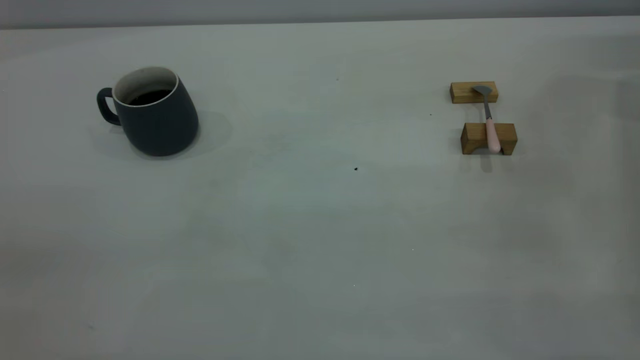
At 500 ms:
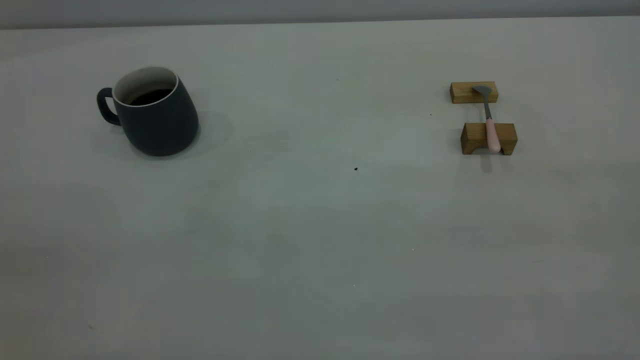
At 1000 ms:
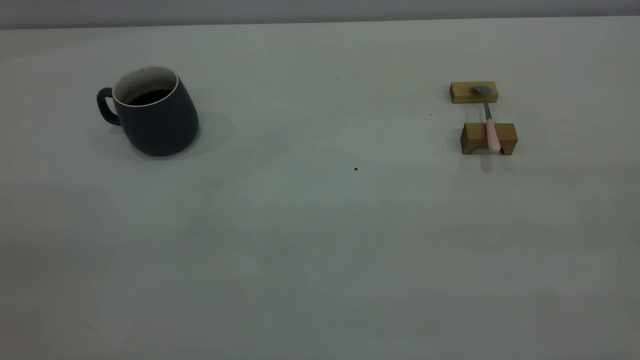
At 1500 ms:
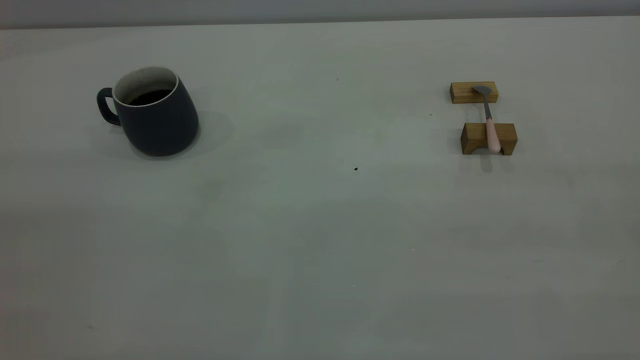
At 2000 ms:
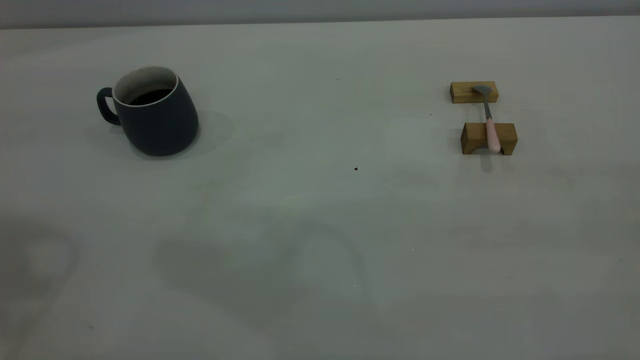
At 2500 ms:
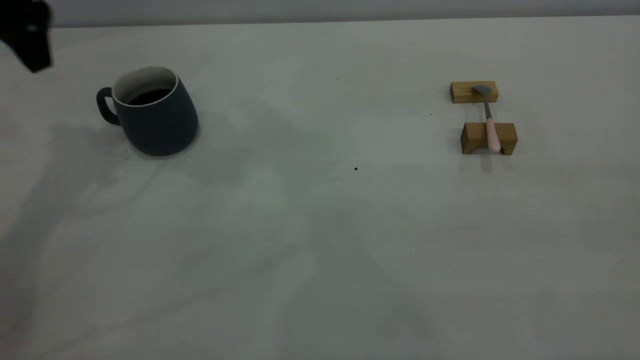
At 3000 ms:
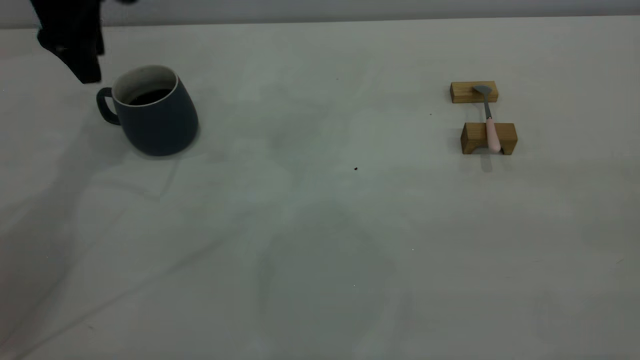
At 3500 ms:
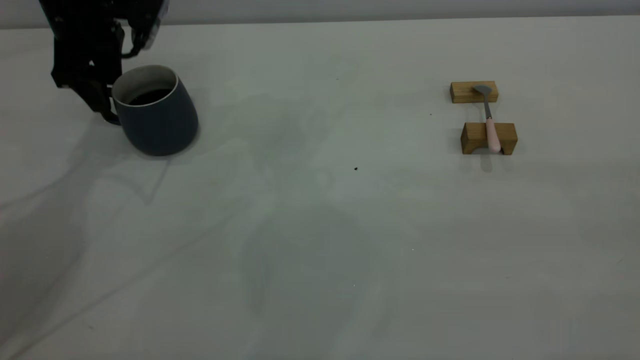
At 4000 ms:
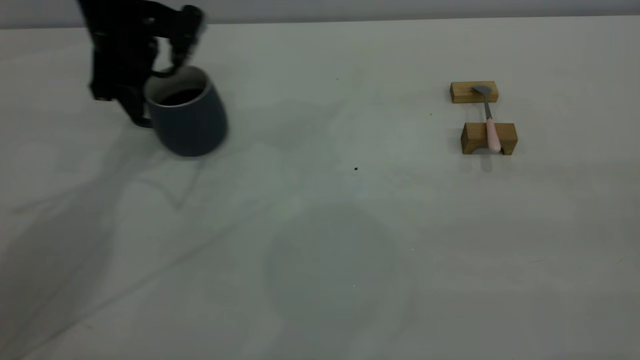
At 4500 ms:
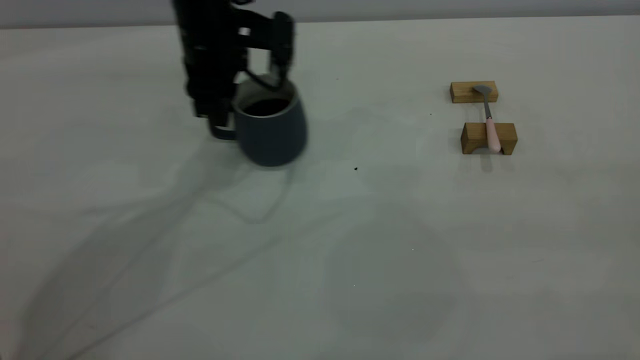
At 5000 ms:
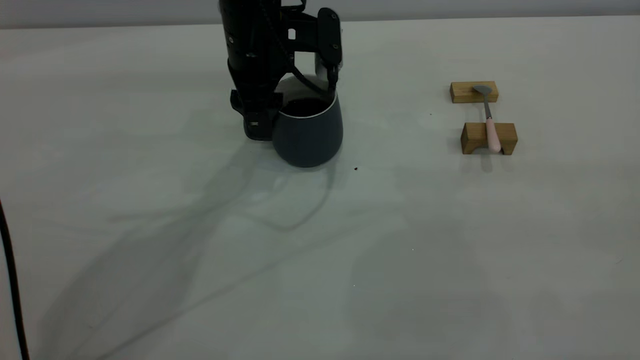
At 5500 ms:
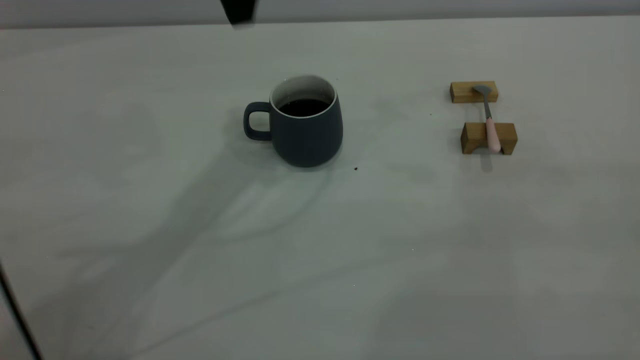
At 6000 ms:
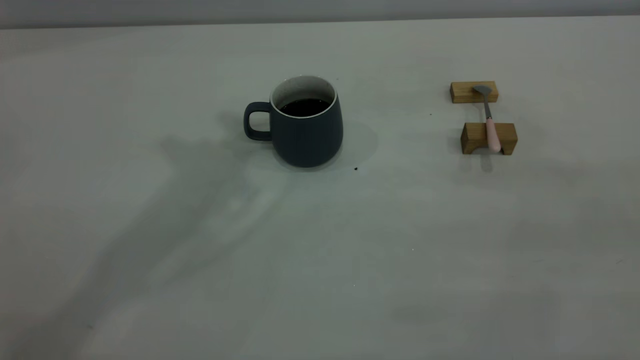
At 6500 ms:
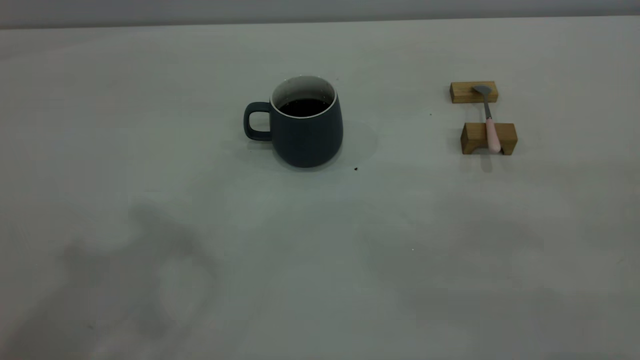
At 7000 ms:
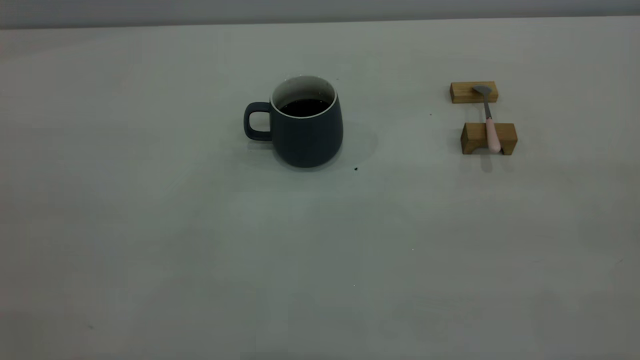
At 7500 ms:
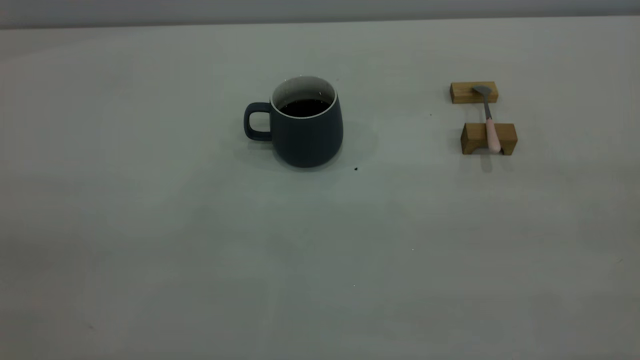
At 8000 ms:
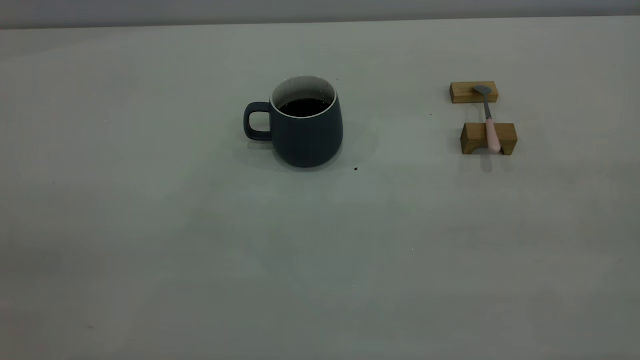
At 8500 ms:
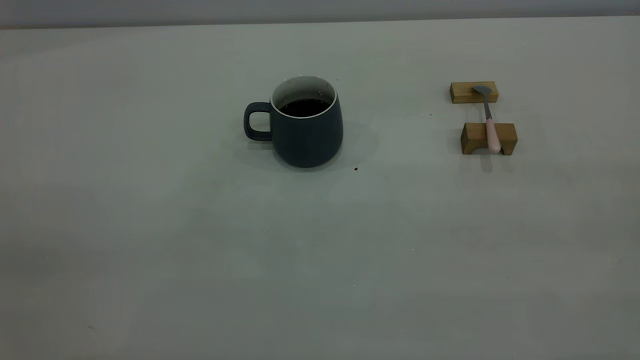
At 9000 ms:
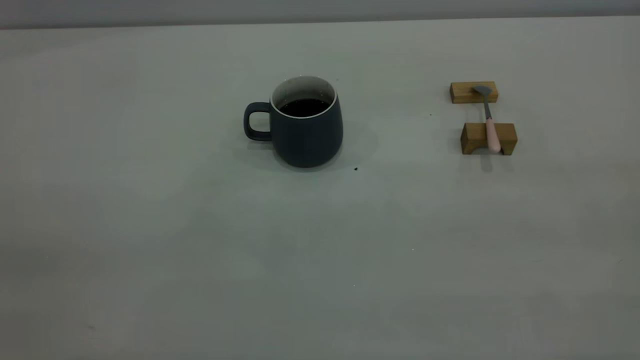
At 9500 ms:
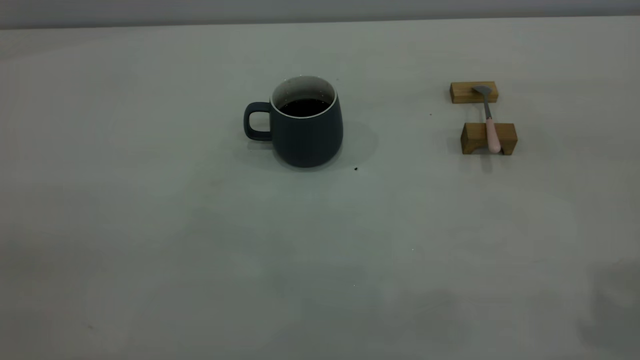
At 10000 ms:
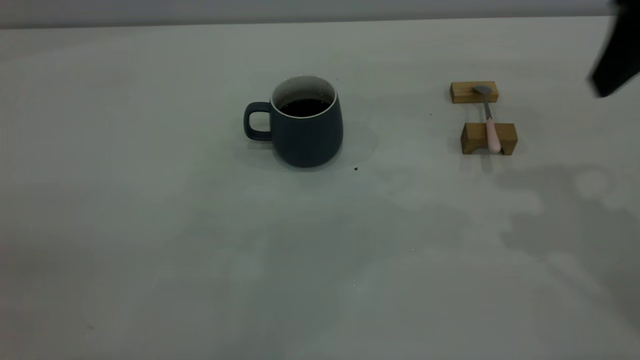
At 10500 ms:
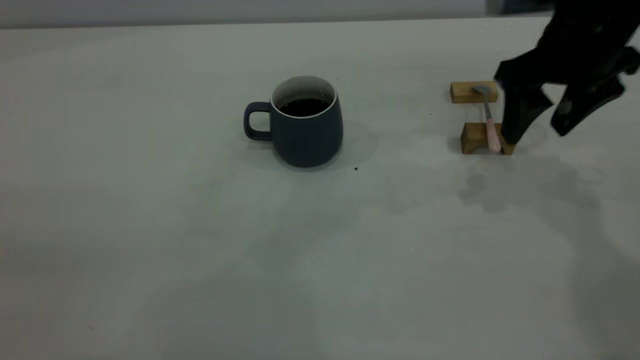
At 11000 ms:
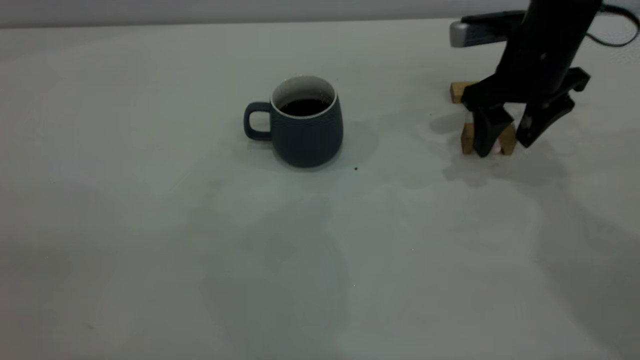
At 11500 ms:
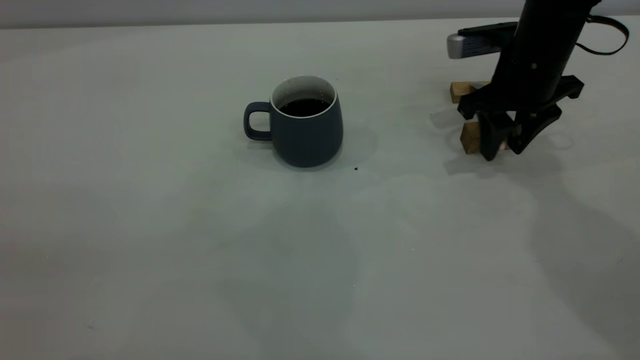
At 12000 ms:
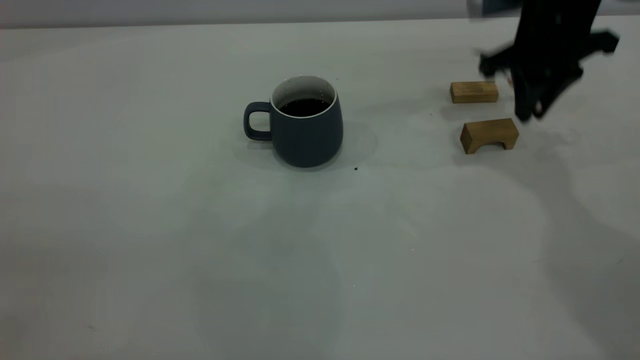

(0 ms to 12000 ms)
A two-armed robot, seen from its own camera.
Step, 0 ms - 5000 ms: Move the cup with coffee to the center of view.
Step, 5500 ms - 11500 ms: Pick up the spoon.
2000 ms - 4000 ms: The left gripper is displaced forward and downward by approximately 30 cm, and opens and closes again.
4000 ms - 6000 ms: The left gripper is displaced upward and backward by approximately 30 cm, and opens, then closes again.
8000 ms - 10000 ms: The right gripper moves forward, approximately 30 cm, and opens.
10000 ms - 12000 ms: The right gripper is displaced forward and downward by about 15 cm, and closes its fingers.

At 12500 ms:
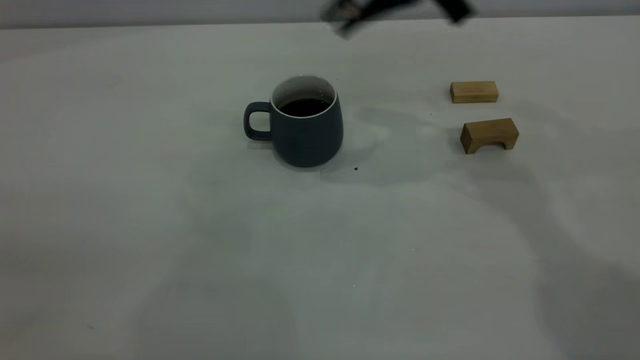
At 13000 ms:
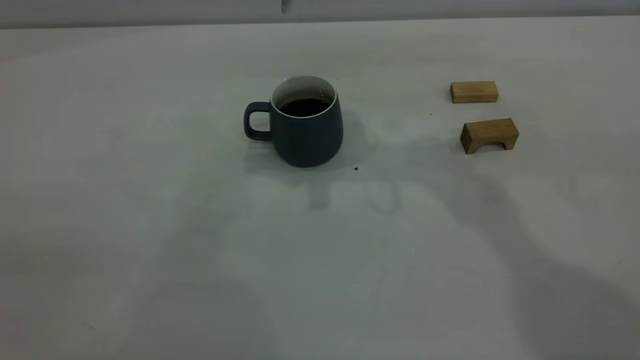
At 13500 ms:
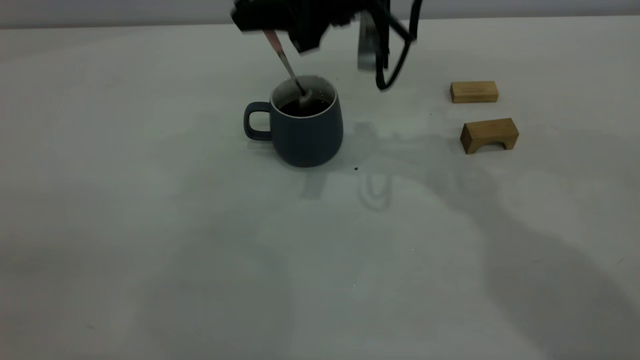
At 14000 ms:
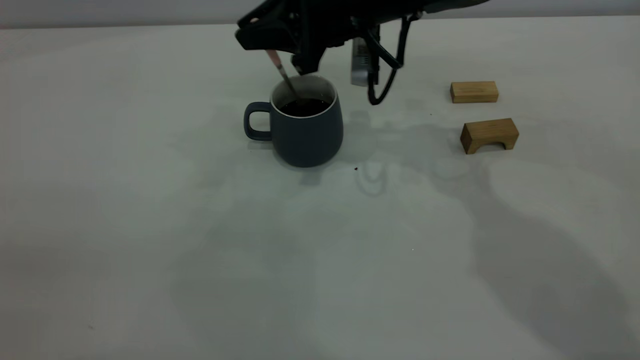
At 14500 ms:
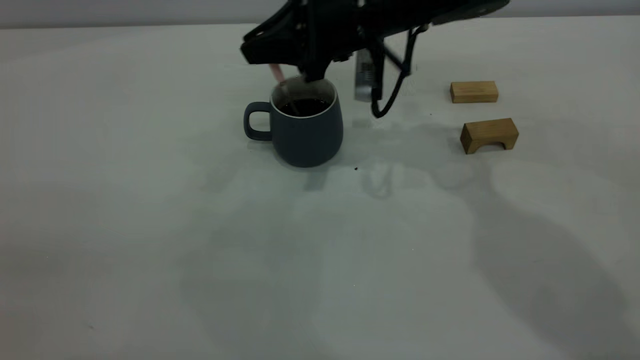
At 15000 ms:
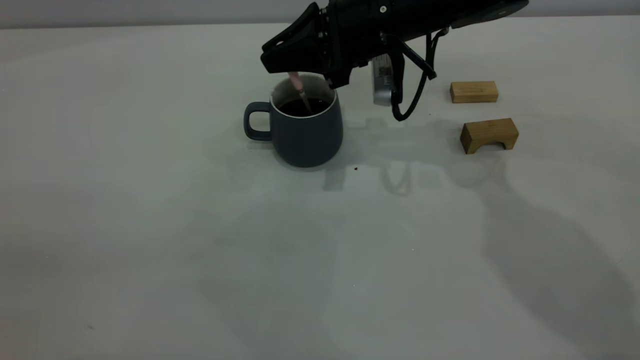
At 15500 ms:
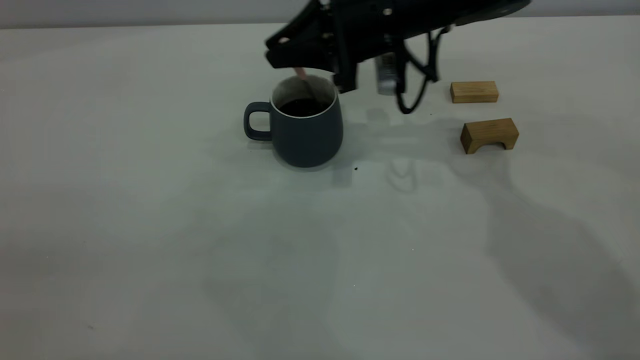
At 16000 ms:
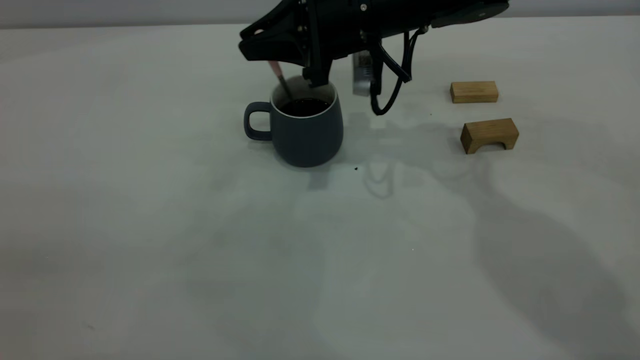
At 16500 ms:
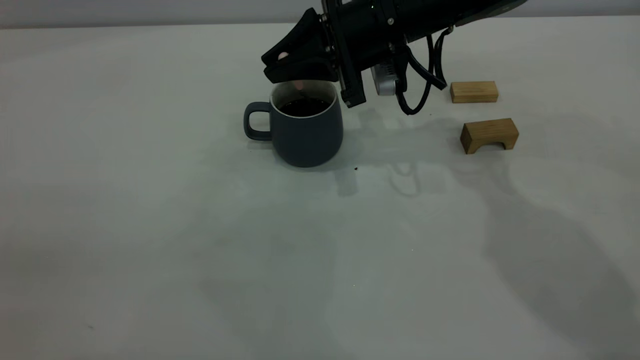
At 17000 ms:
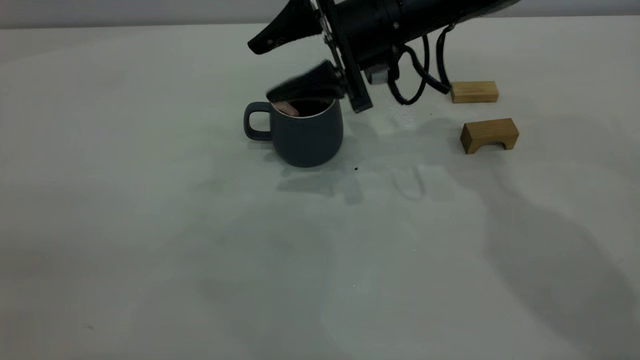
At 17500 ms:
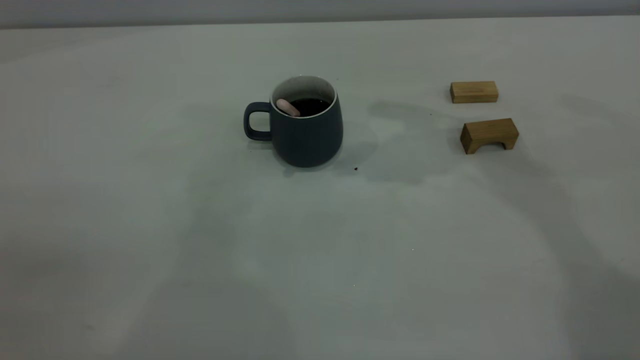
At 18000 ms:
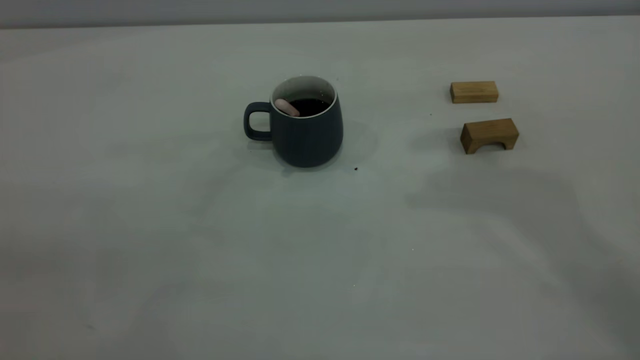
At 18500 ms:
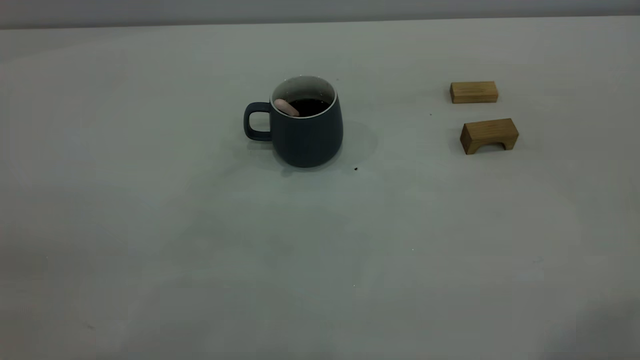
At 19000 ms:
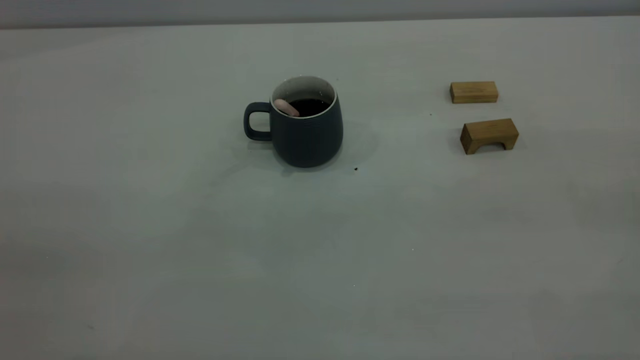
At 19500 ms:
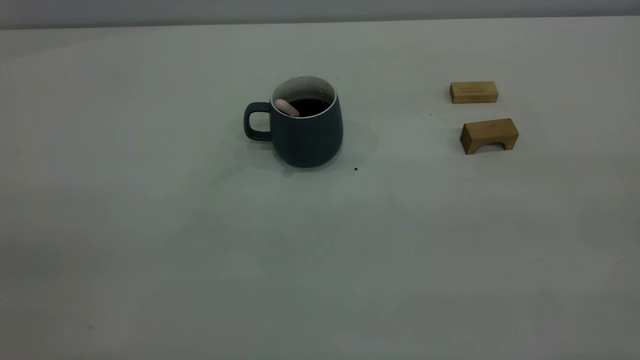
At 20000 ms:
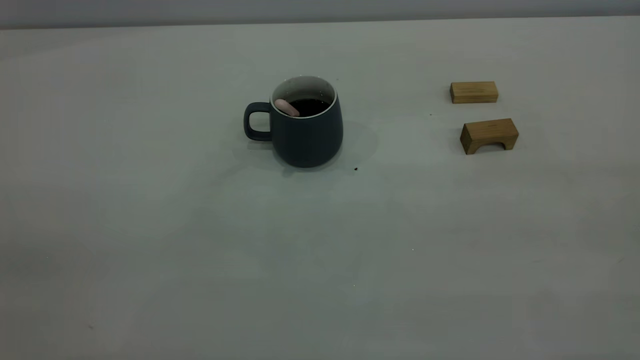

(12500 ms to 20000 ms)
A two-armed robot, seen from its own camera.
Step, 12500 ms - 17000 ms: Stir the coffee in the cup.
12500 ms - 14500 ms: The right gripper is displaced downward by some 10 cm.
14500 ms - 16500 ms: The grippers stay close to where they were, moving slightly.
16500 ms - 18000 ms: The right gripper heads upward, covering about 30 cm, and opens, then closes again.
